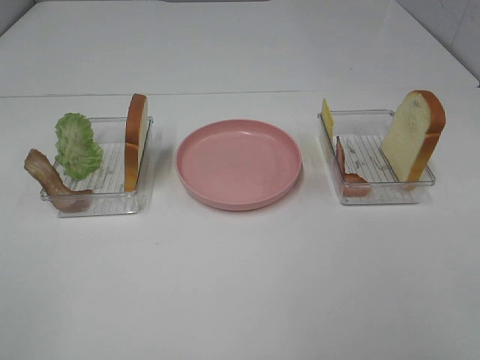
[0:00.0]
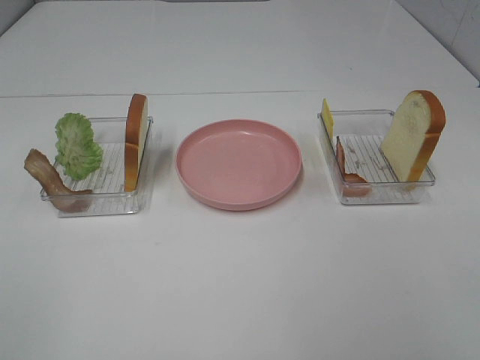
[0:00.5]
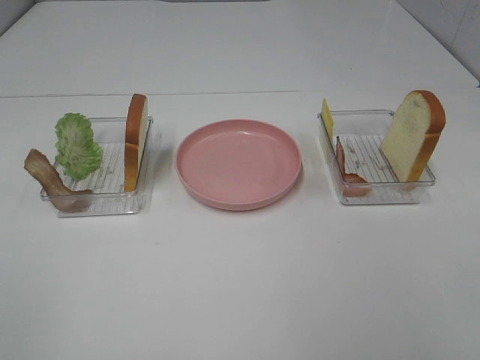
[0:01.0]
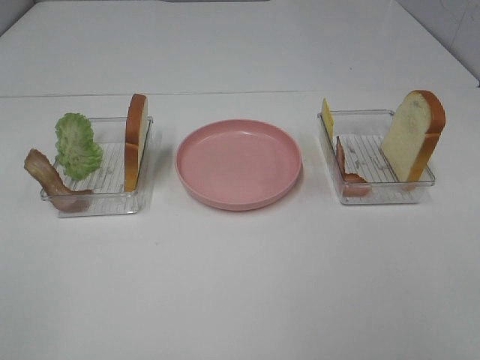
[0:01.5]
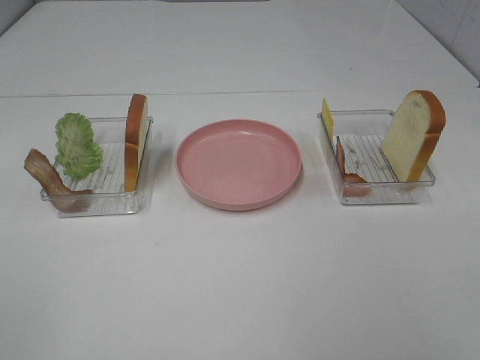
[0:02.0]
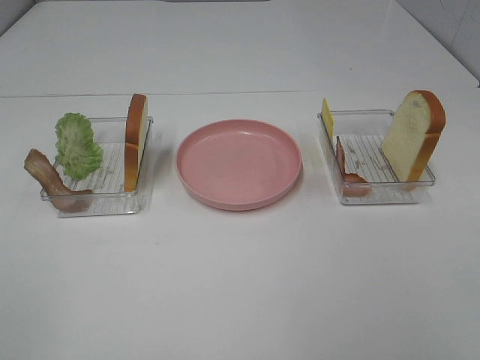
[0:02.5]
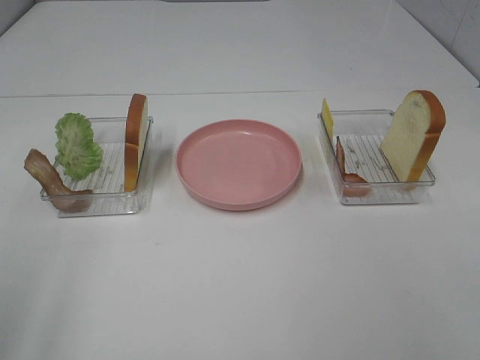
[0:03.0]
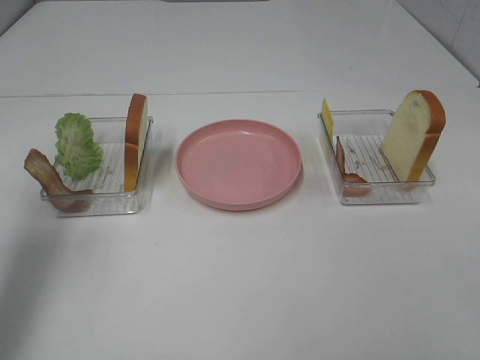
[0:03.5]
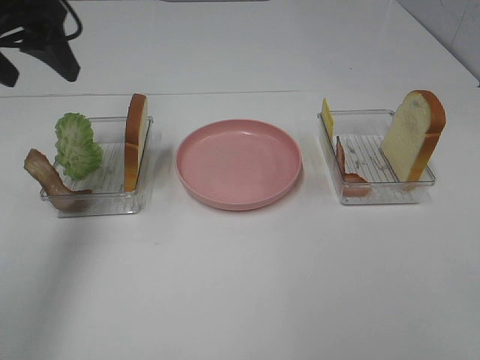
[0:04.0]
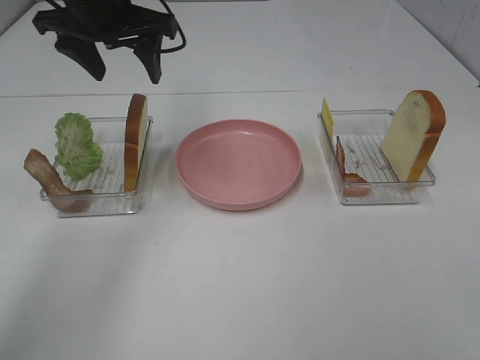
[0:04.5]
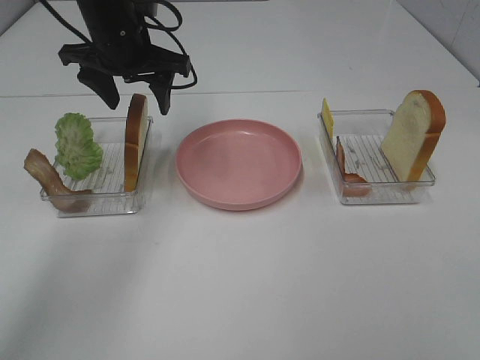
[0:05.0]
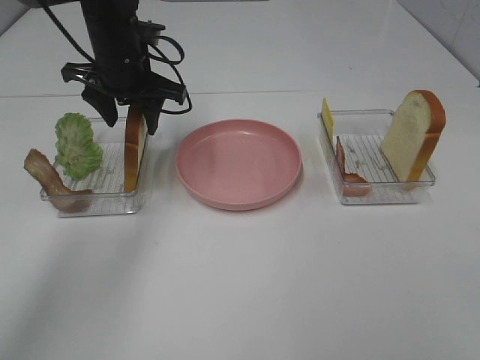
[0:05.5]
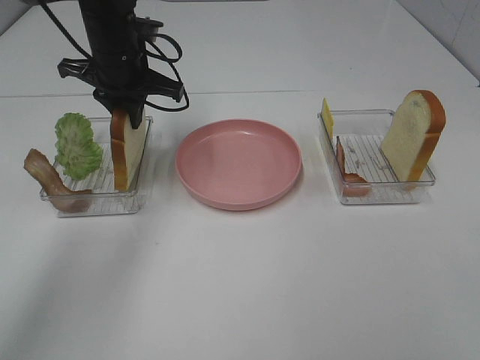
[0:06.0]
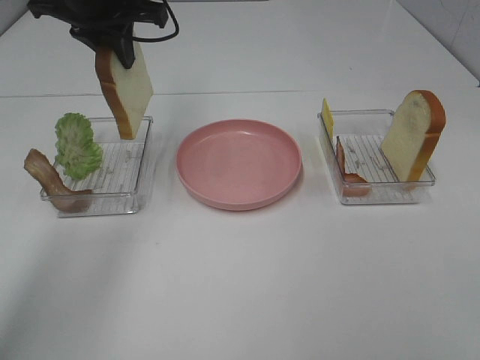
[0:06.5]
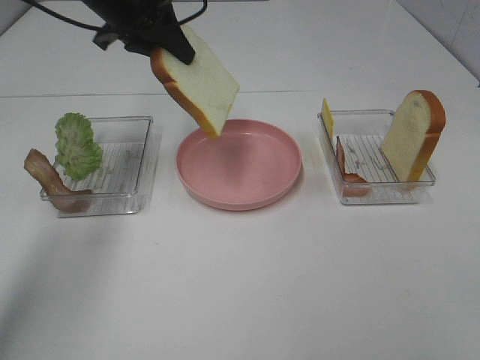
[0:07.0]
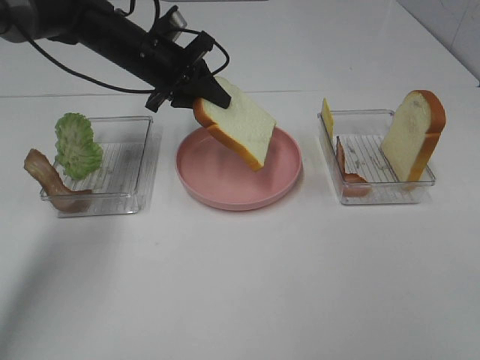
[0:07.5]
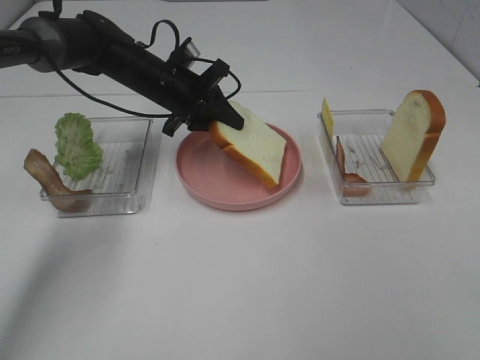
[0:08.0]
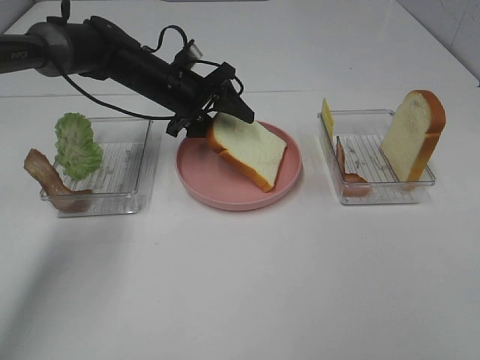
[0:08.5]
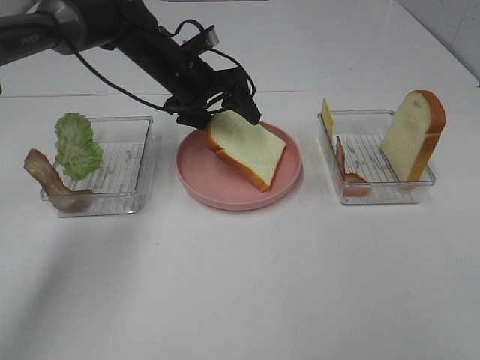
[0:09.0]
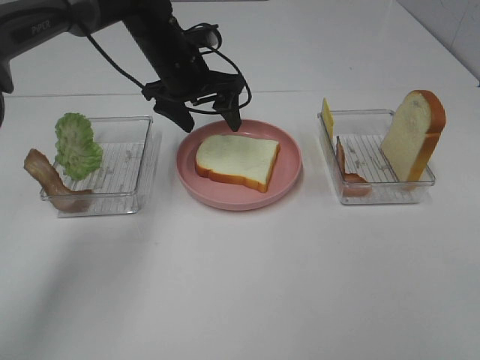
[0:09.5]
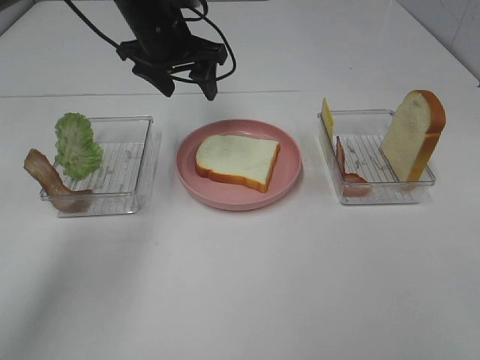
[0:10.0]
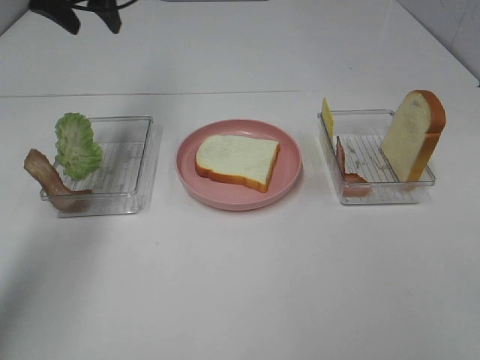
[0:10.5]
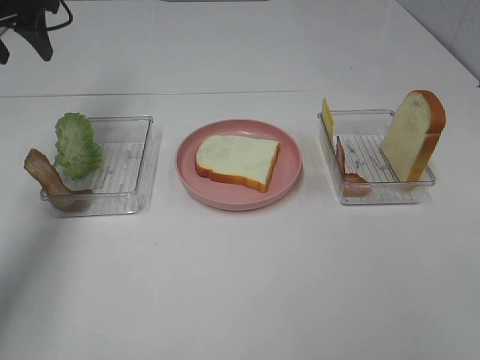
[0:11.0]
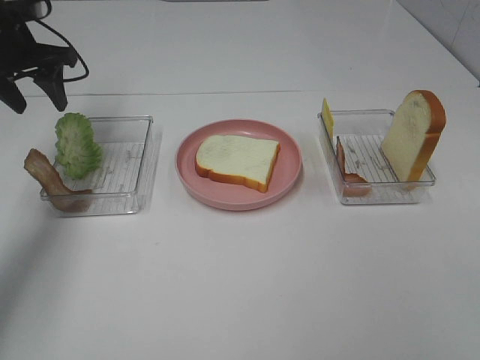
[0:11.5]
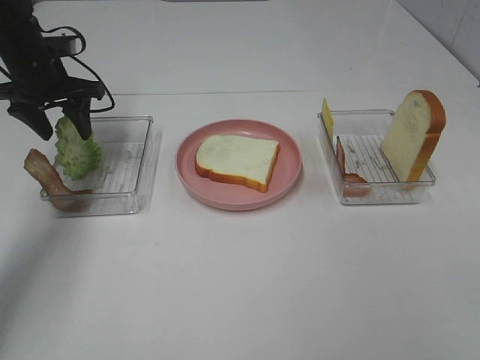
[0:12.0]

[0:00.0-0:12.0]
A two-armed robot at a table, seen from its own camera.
Task of the whole recording: Make sandwiches.
Step, 0:00.0 to 0:06.0: Left hand:grab the bread slice.
Step, 0:06.5 to 0:09.5: Left hand:place the bread slice on the plate.
0:00.0 to 0:02.0: Both grippers stay about where they are.
0:02.0 to 0:04.0: The left gripper goes some 35 cm forward.
0:04.0 to 0:06.0: The left gripper heads forward, downward and to the right, covering approximately 20 cm, and closes its fingers.
0:06.0 to 0:08.0: The left gripper moves downward, roughly 10 cm.
0:08.0 to 0:10.0: The left gripper moves upward, roughly 10 cm, and opens up.
0:10.0 to 0:12.0: The left gripper heads to the left, covering approximately 15 cm.

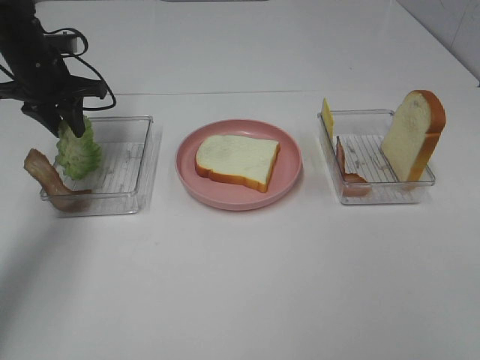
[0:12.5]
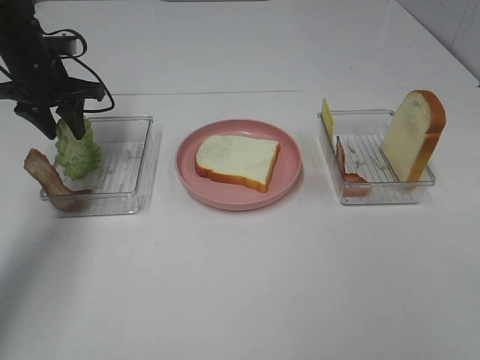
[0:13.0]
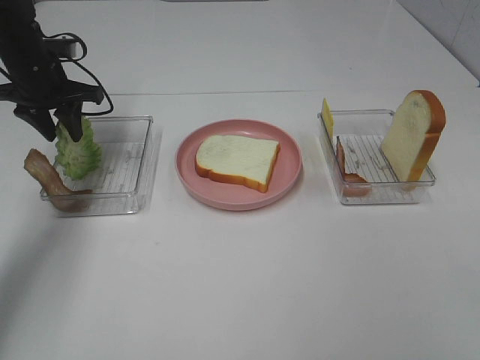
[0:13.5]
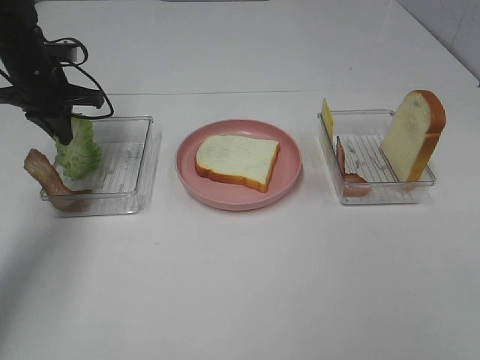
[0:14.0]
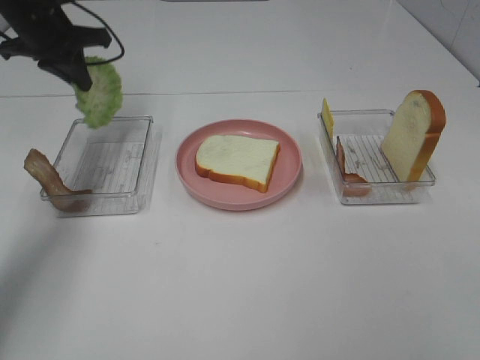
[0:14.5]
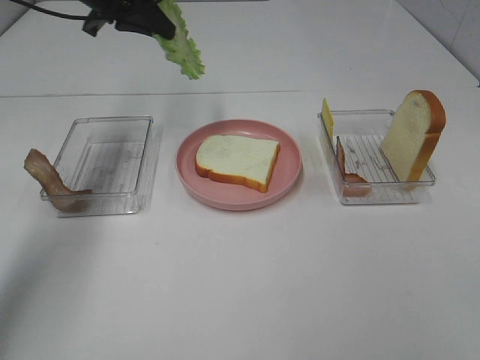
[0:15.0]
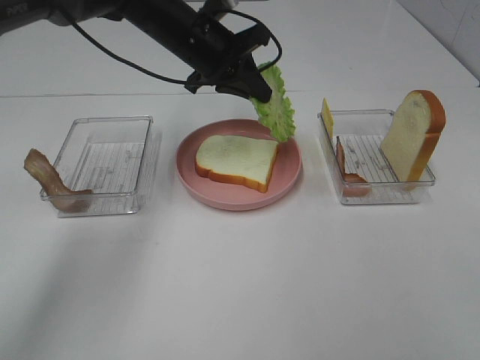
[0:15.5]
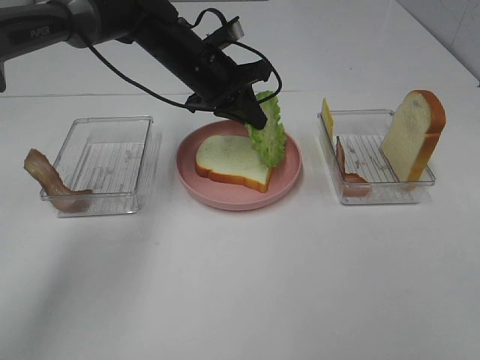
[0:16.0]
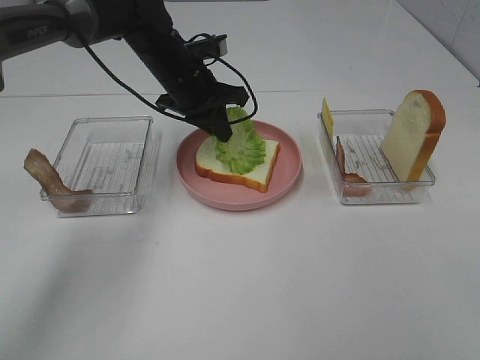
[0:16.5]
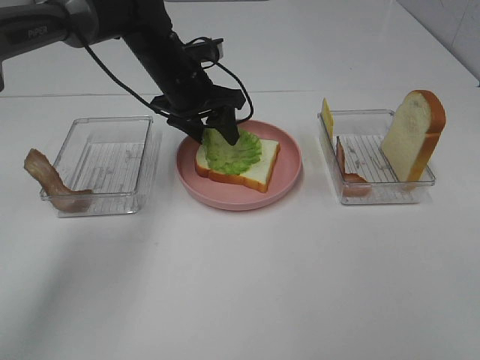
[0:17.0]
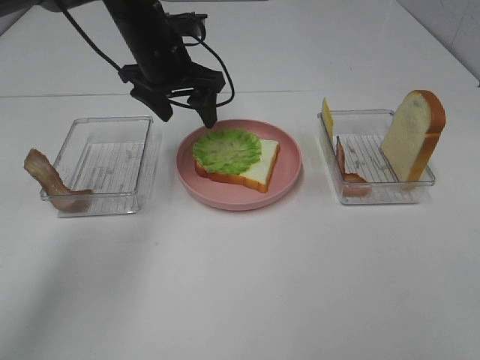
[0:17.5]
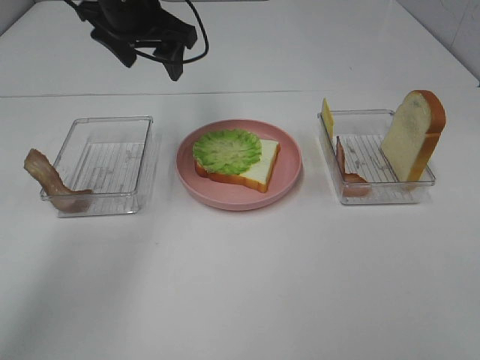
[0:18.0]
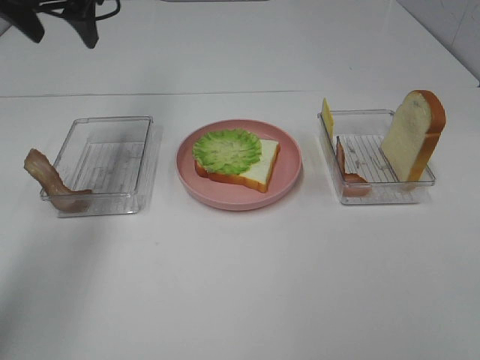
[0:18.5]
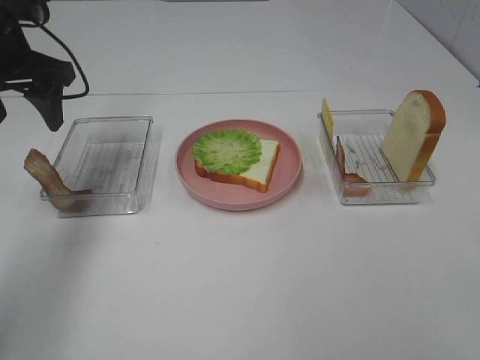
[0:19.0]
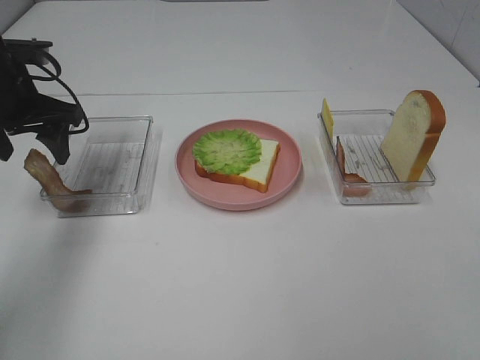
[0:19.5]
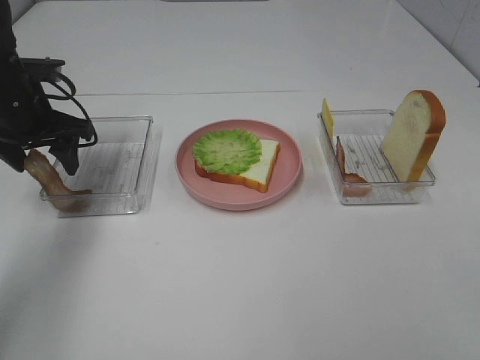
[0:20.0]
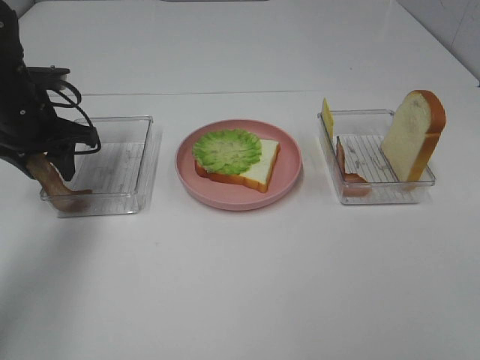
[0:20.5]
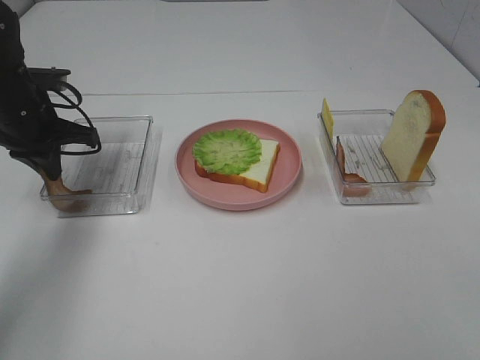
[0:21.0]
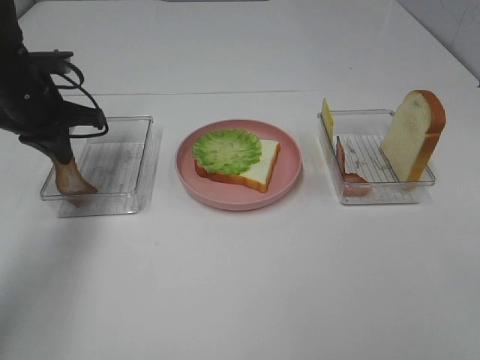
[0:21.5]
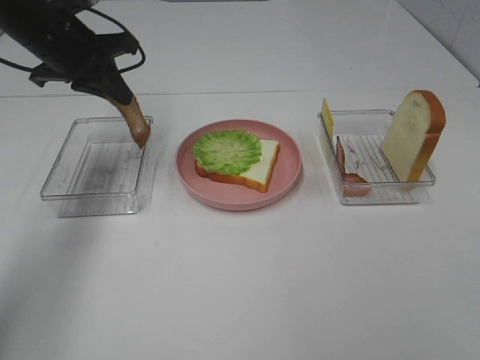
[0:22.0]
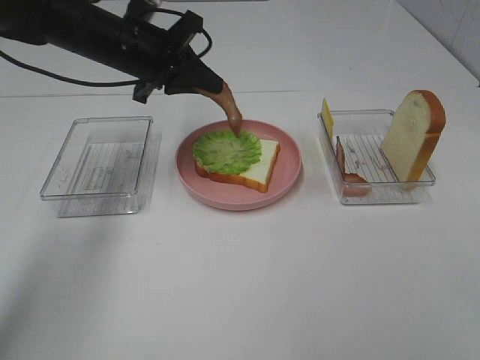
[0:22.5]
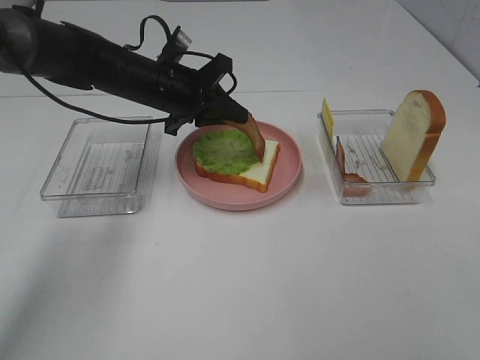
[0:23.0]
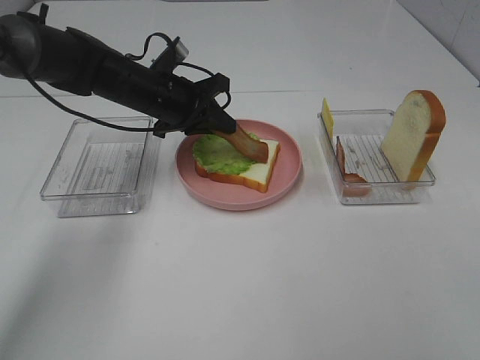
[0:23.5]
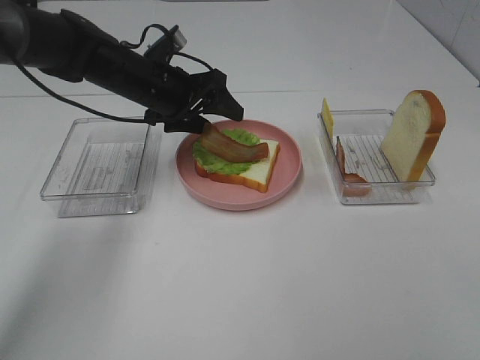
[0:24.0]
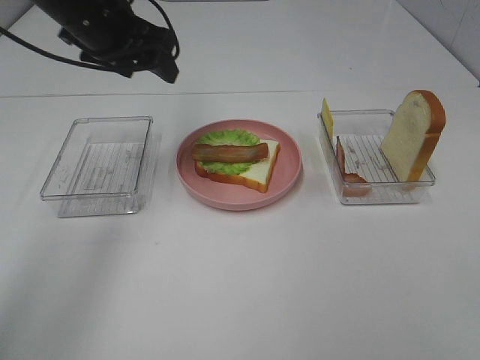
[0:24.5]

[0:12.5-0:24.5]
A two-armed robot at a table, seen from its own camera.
Task of the whole recording: Make sandwiches.
Step, 0:14.5 to 0:17.0: Left hand:place the lettuce slice on the bread slice.
Step, 0:17.5 to 0:21.0: Left hand:grab the bacon.
Step, 0:21.5 to 0:24.0: Left hand:place bacon on lettuce slice.
0:12.5 to 0:14.5: The left gripper heads upward, covering some 10 cm, and closes up.
0:14.5 to 0:16.5: The left gripper goes approximately 20 cm to the right and downward.
0:16.5 to 0:18.5: The left gripper shifts roughly 20 cm to the left and upward, and opens.
0:18.5 to 0:20.5: The left gripper travels downward by approximately 15 cm.
0:20.5 to 0:22.5: The left gripper moves to the right, approximately 10 cm, and closes its fingers.
0:22.5 to 0:24.5: The left gripper shifts about 5 cm upward, and opens its fingers.

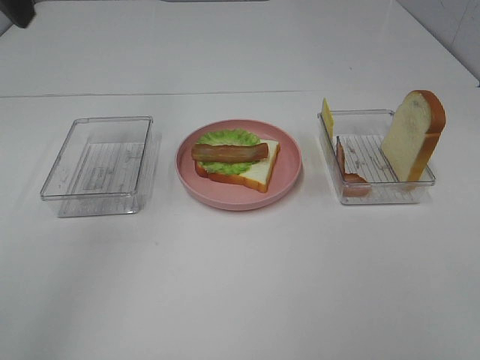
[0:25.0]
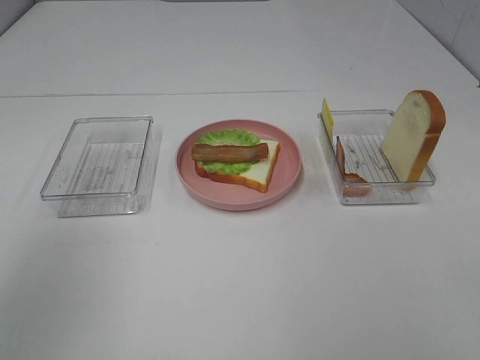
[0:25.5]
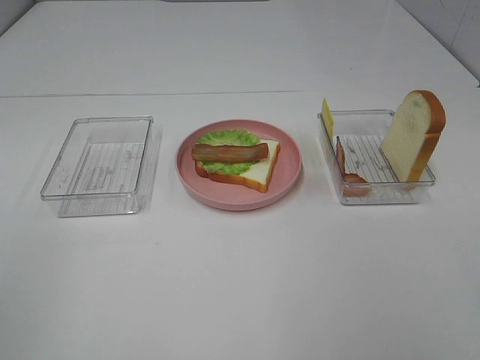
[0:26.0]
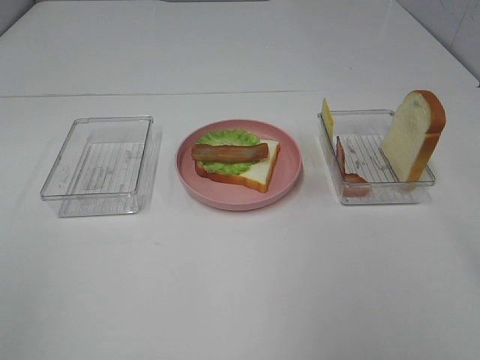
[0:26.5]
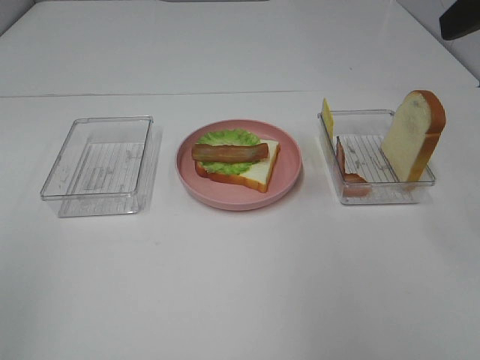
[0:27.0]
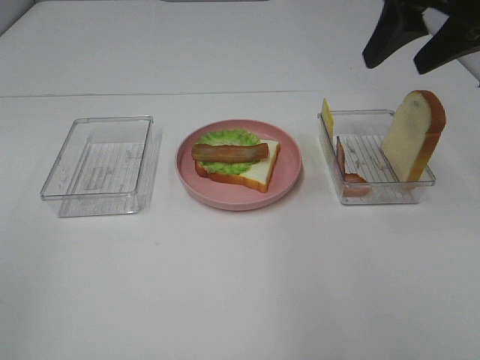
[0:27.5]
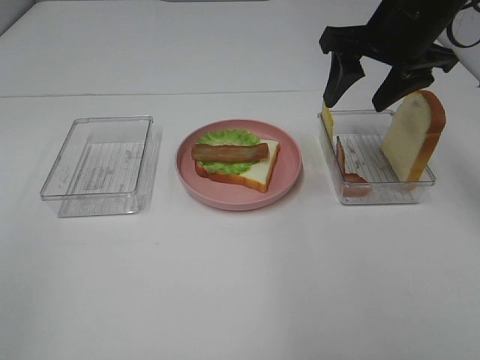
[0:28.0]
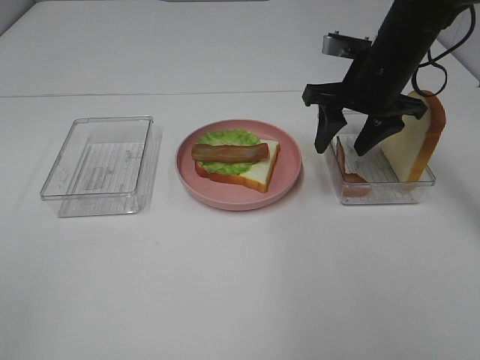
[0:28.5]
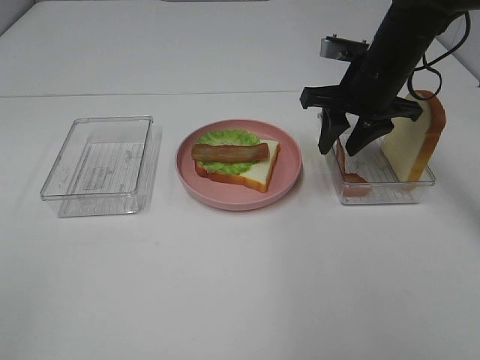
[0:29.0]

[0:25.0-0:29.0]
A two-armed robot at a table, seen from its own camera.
Task of the whole recording: Make sandwiches.
0:25.0 to 0:27.0: The right gripper moves forward, roughly 25 cm, while the left gripper moves backward, approximately 30 cm.
0:27.0 to 0:29.0: The right gripper moves downward, forward and to the left, approximately 25 cm.
